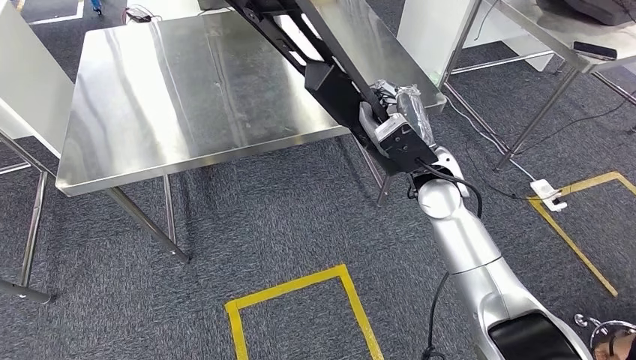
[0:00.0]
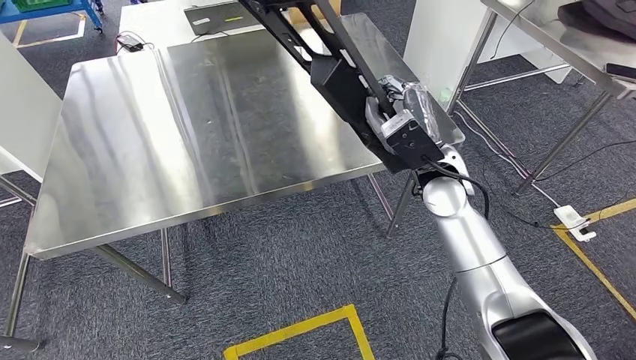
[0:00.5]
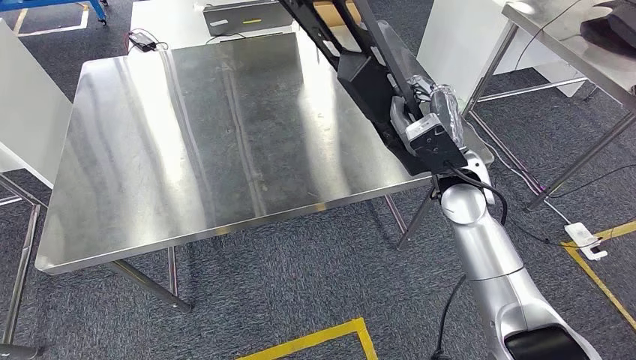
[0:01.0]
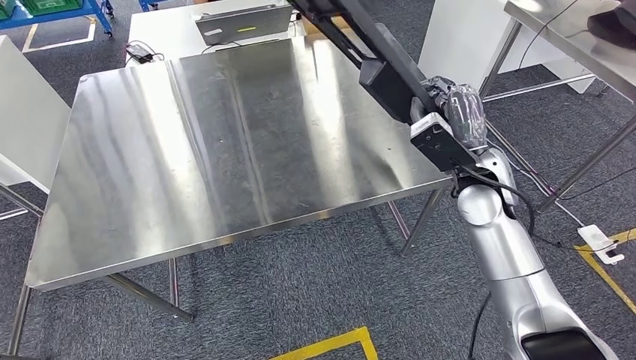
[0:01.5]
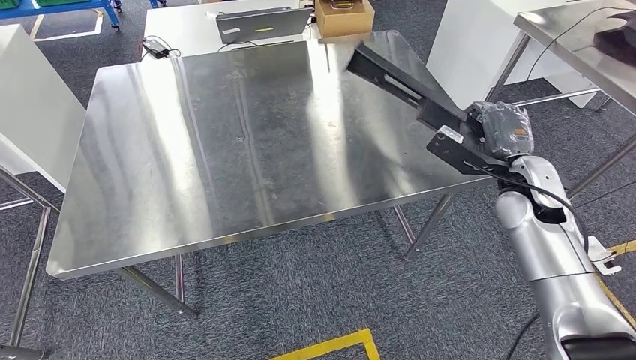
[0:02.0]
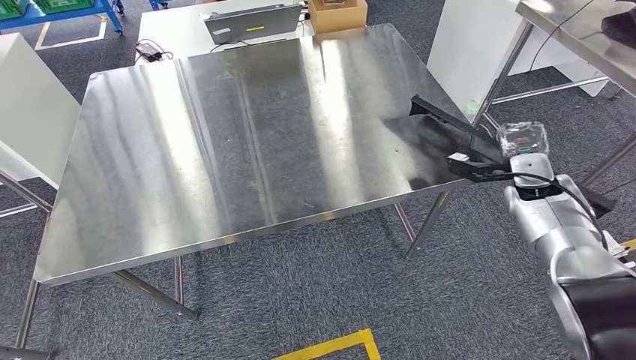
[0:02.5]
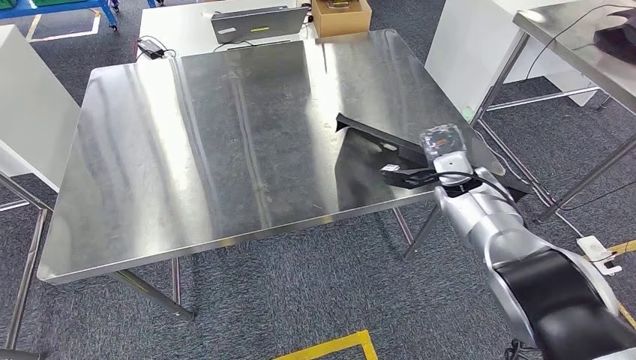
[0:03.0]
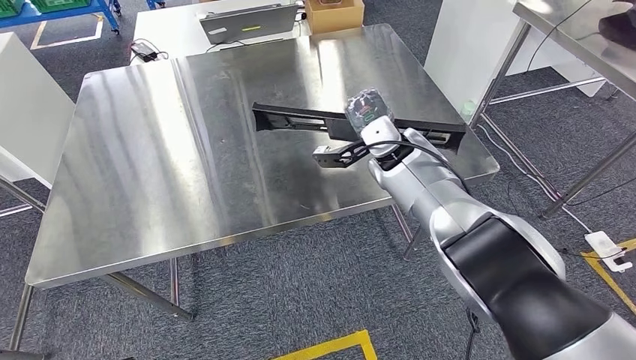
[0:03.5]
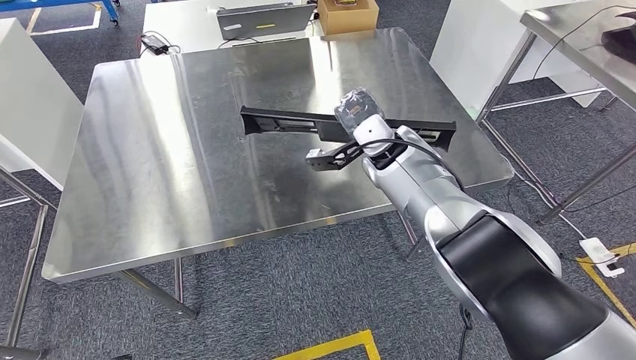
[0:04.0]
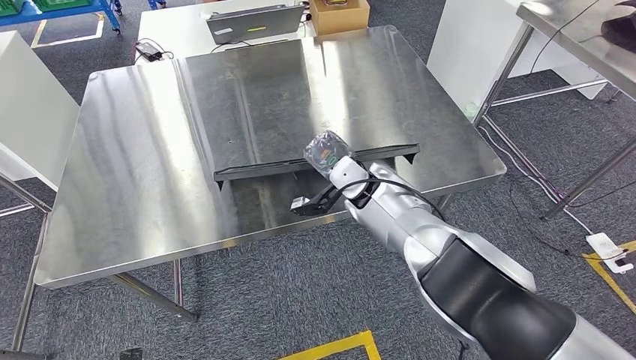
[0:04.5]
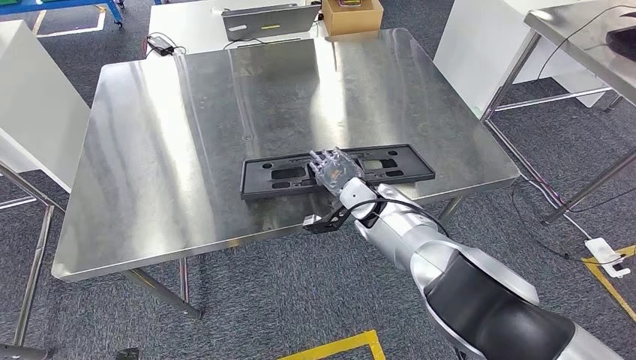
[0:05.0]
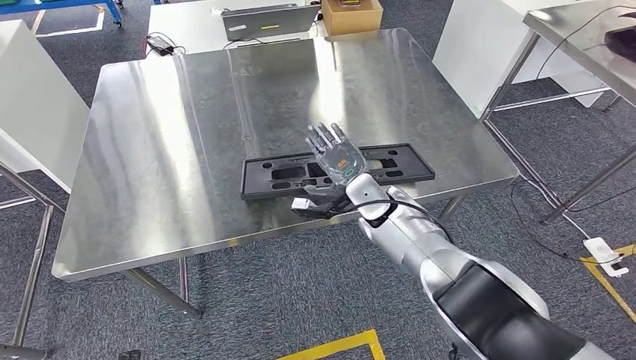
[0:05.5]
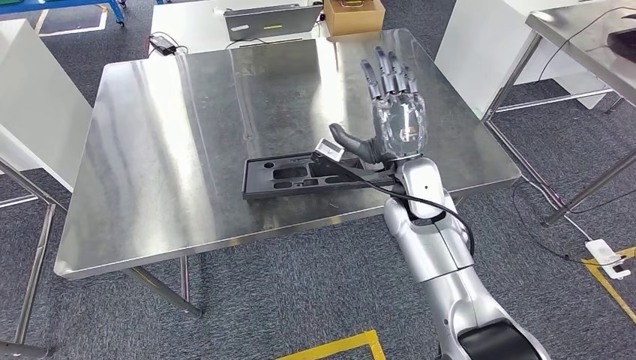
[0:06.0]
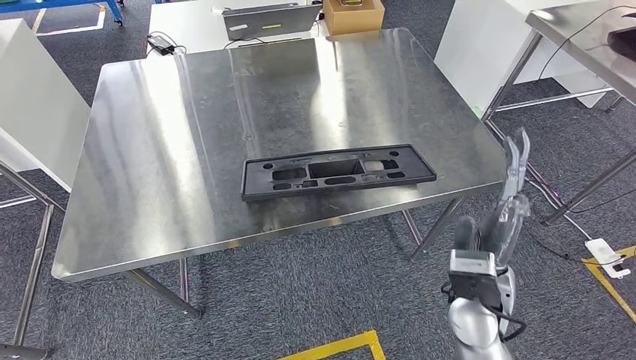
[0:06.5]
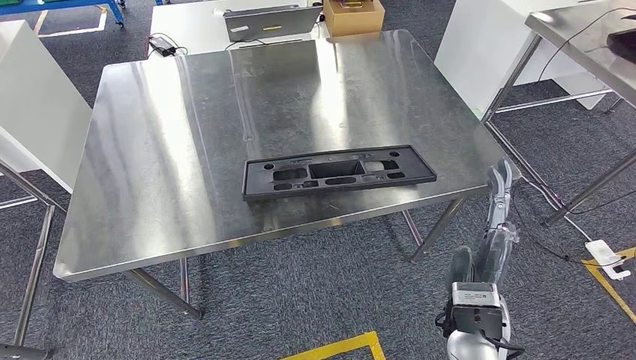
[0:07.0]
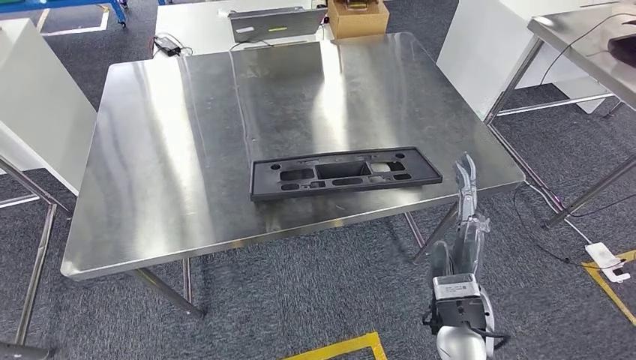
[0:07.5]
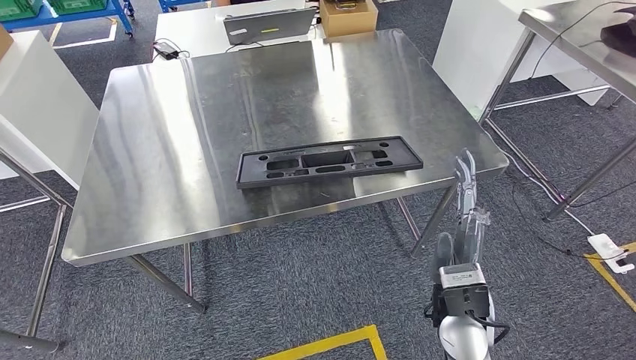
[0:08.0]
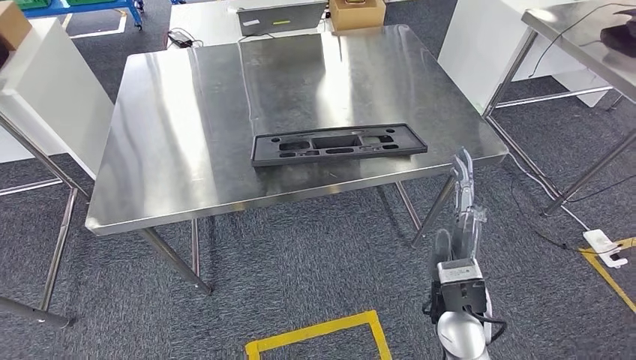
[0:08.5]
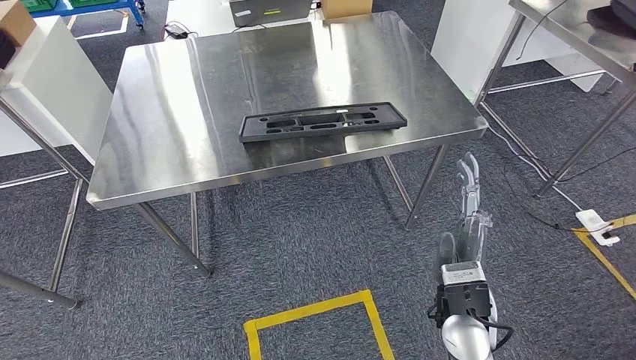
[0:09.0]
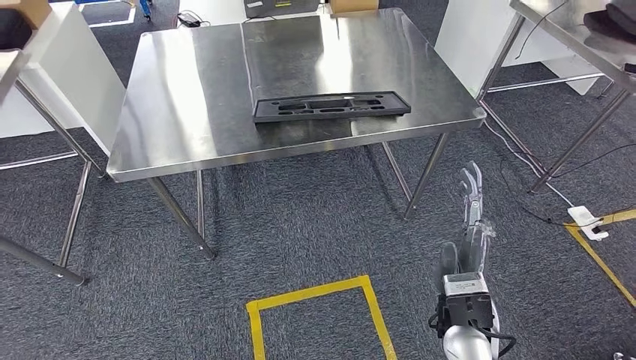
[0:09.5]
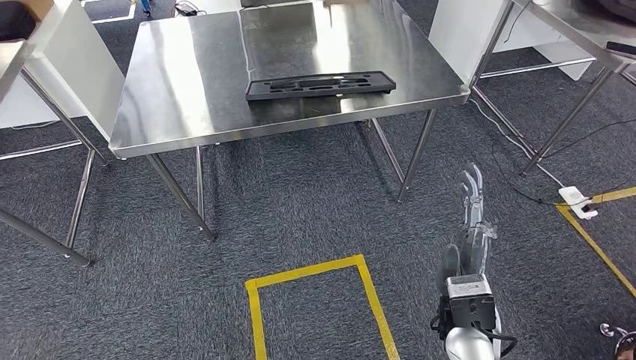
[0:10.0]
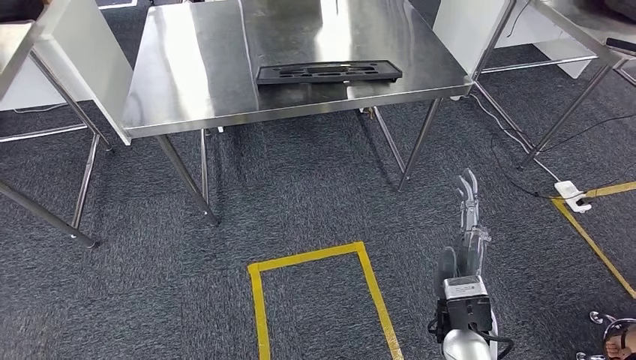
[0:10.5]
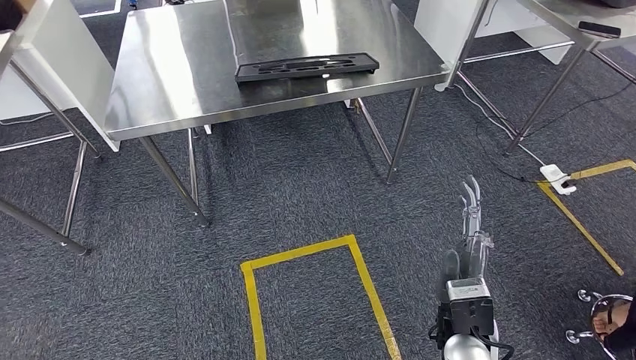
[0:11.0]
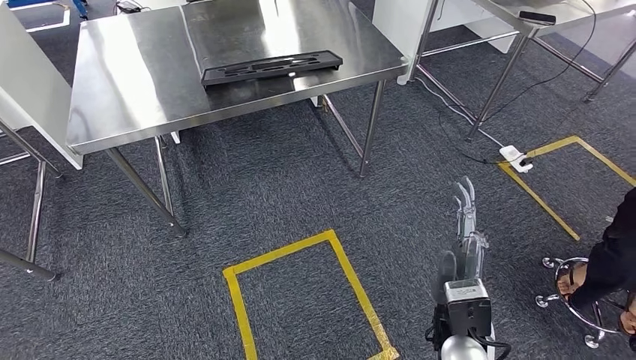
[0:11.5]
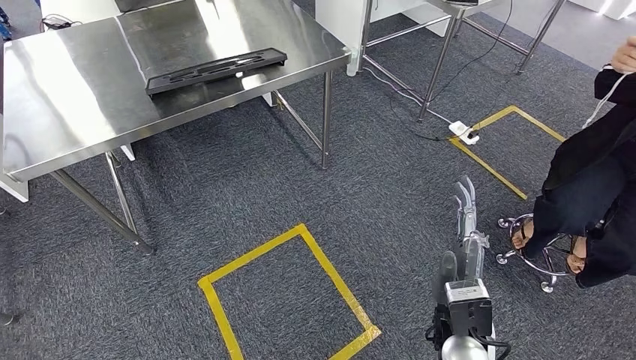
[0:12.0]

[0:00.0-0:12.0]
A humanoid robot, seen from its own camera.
Step, 0:00.0 to 0:02.0: Move the large parts to the workbench.
Step, 0:03.0 to 0:08.0: Insert the large parts into the corresponding slots on the workbench.

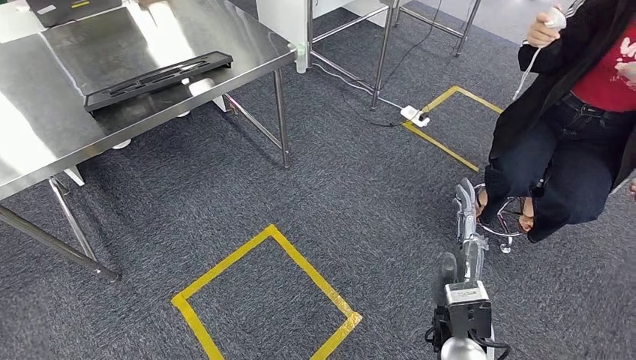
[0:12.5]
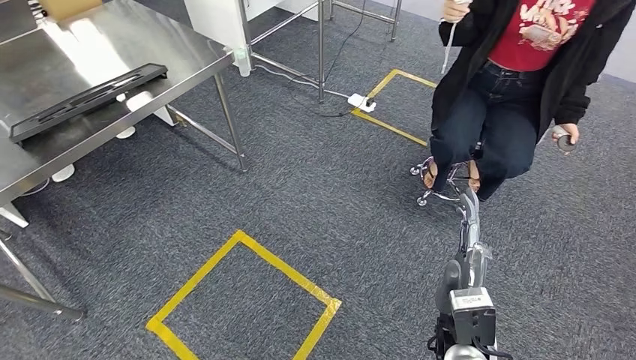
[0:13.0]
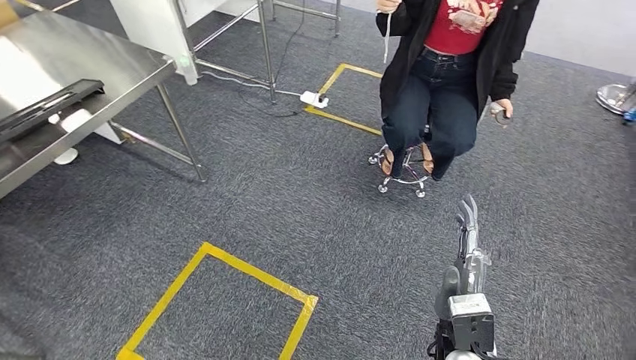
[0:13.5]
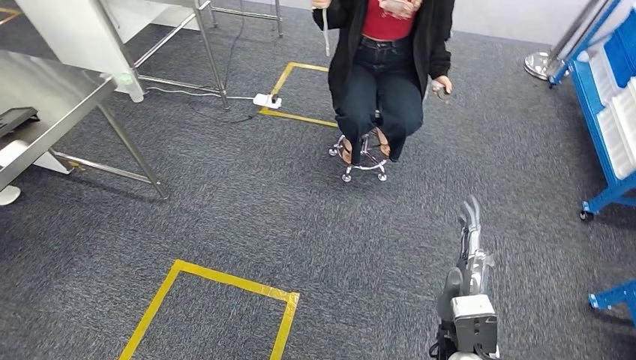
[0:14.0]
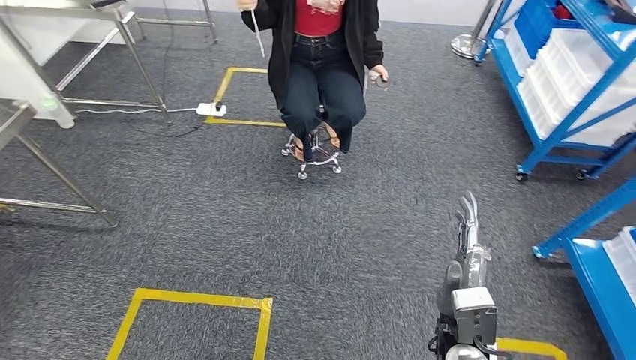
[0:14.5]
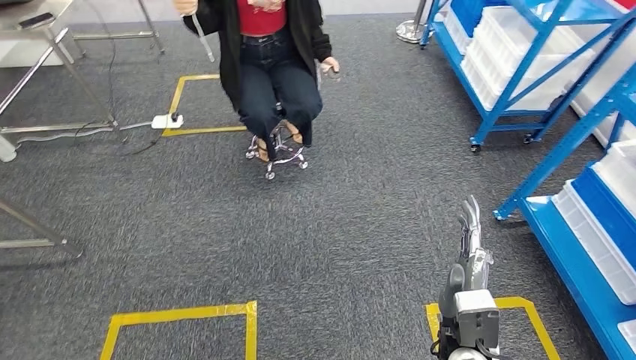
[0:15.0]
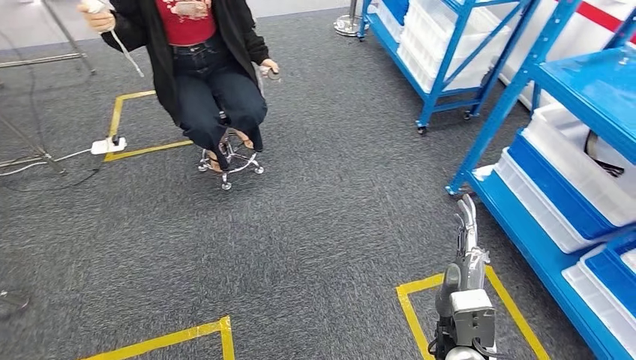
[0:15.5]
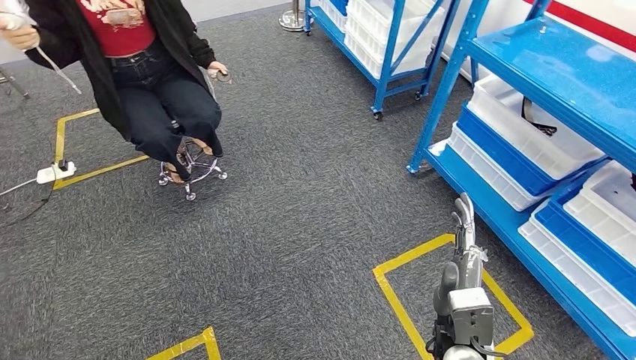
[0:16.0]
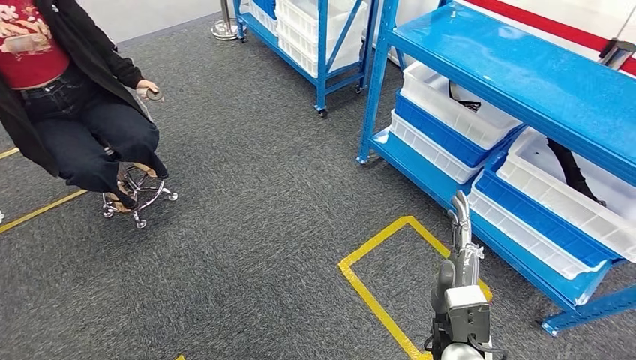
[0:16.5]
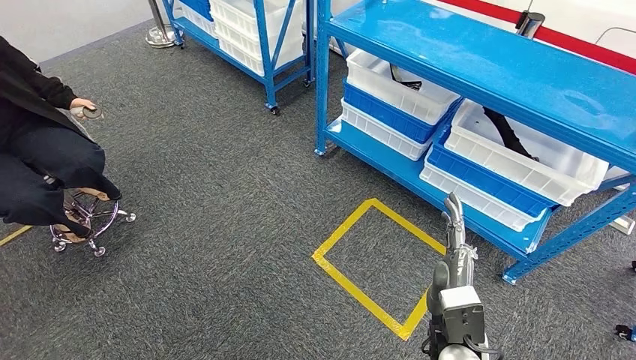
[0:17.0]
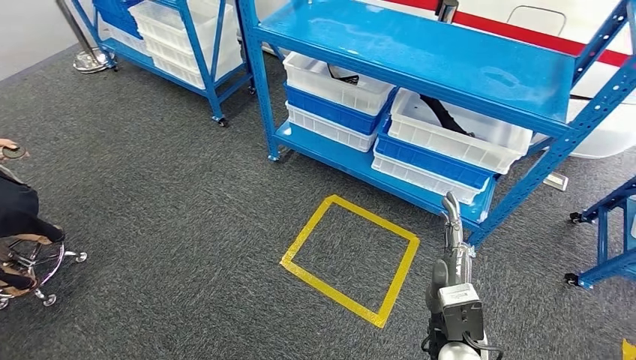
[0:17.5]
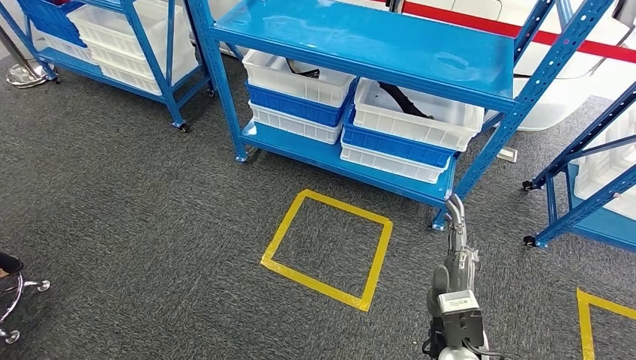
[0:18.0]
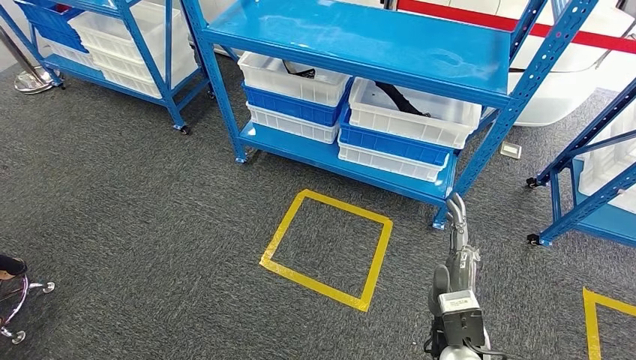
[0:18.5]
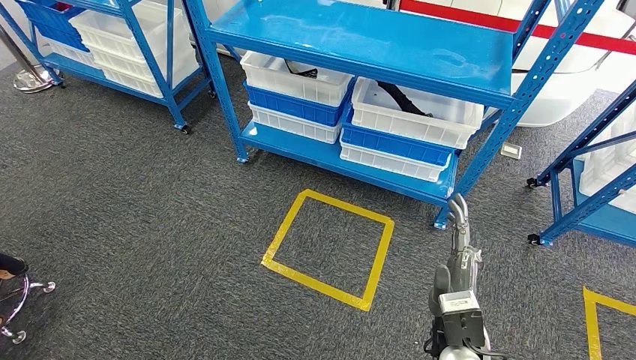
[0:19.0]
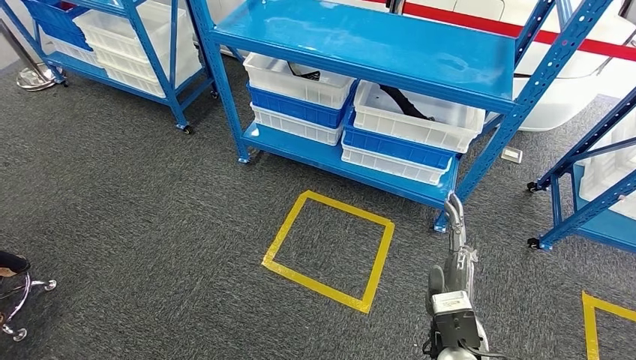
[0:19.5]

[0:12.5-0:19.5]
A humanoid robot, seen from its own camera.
Step, 0:12.5 to 0:19.0: Return to the initial position at the shelf.
